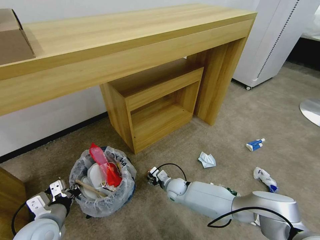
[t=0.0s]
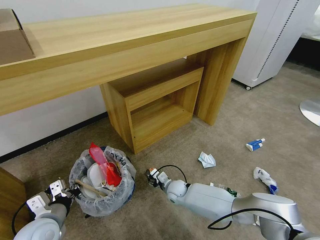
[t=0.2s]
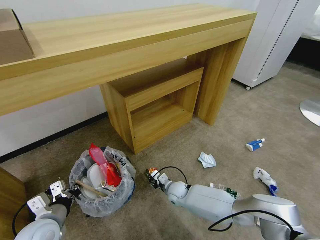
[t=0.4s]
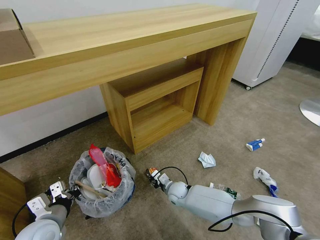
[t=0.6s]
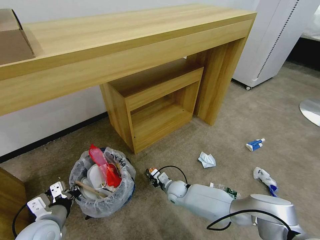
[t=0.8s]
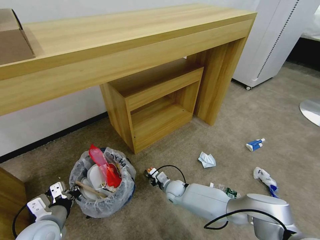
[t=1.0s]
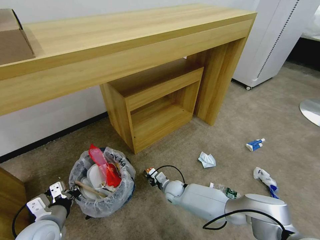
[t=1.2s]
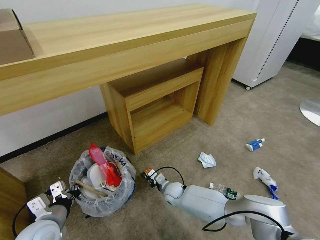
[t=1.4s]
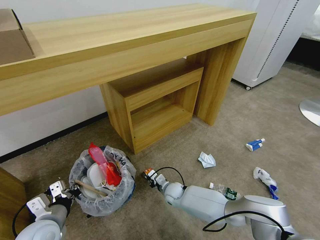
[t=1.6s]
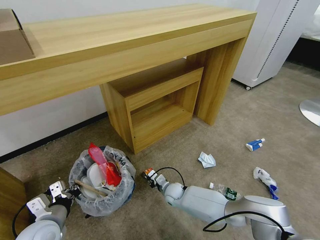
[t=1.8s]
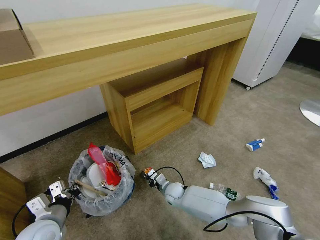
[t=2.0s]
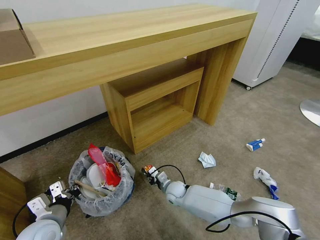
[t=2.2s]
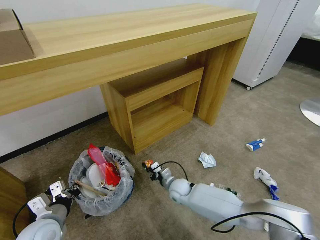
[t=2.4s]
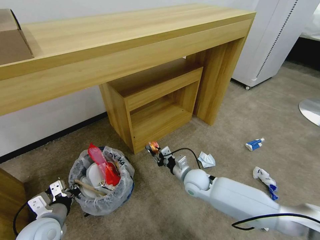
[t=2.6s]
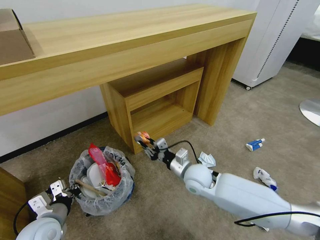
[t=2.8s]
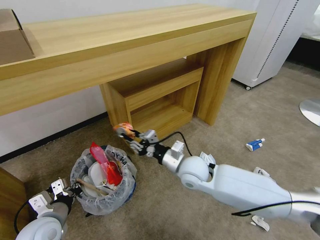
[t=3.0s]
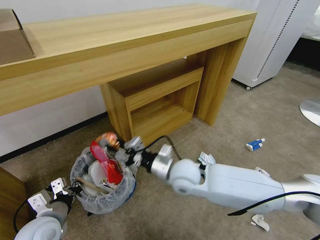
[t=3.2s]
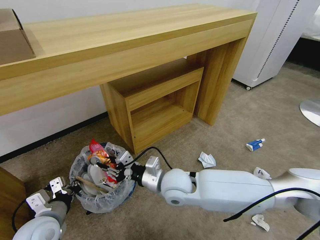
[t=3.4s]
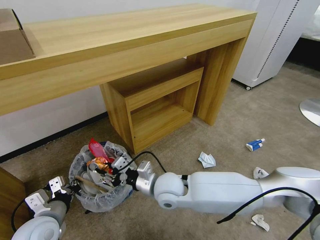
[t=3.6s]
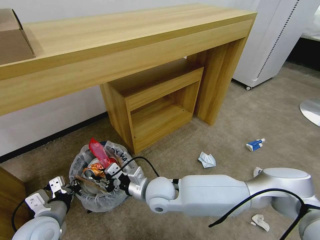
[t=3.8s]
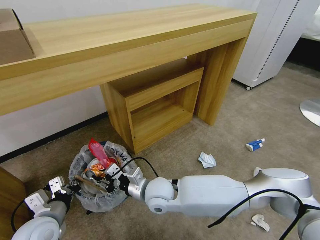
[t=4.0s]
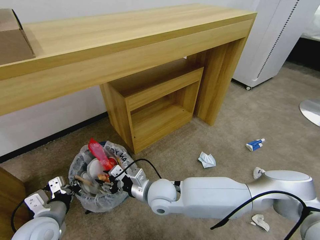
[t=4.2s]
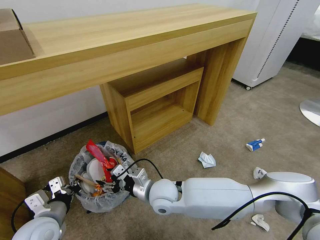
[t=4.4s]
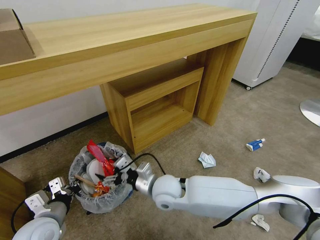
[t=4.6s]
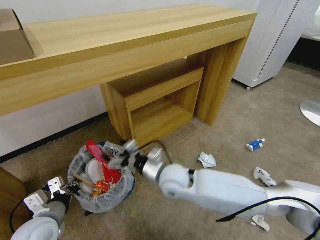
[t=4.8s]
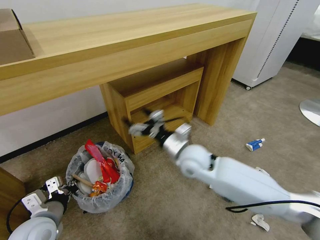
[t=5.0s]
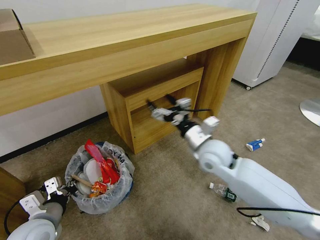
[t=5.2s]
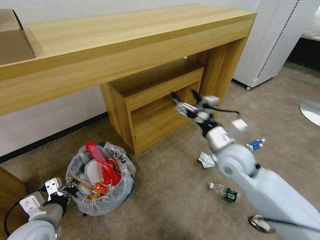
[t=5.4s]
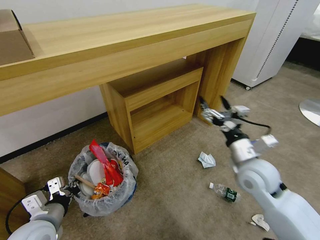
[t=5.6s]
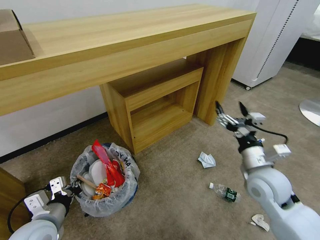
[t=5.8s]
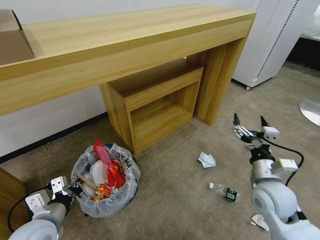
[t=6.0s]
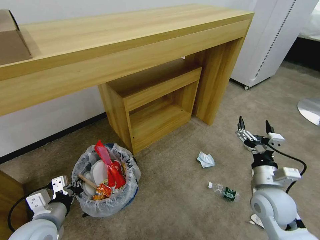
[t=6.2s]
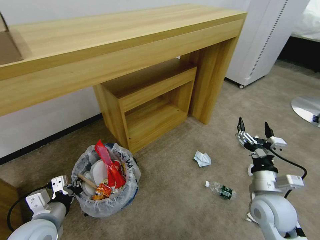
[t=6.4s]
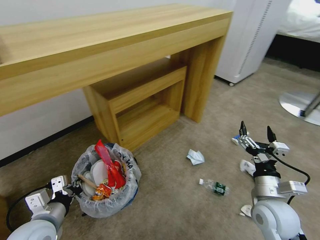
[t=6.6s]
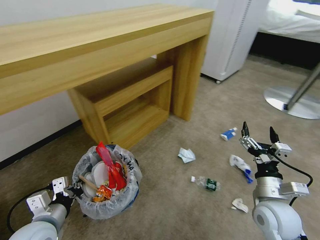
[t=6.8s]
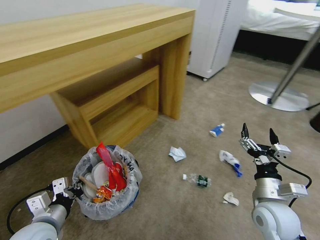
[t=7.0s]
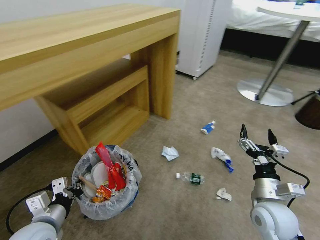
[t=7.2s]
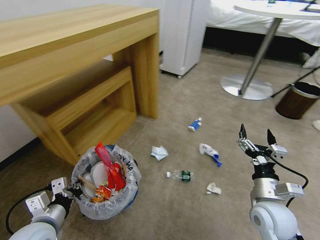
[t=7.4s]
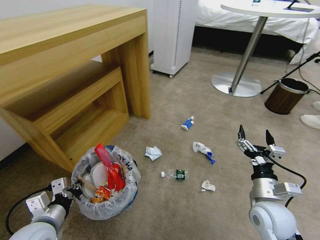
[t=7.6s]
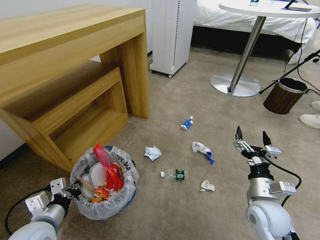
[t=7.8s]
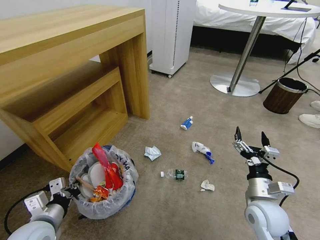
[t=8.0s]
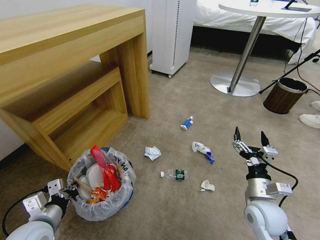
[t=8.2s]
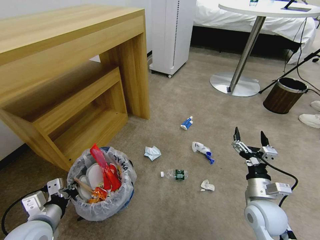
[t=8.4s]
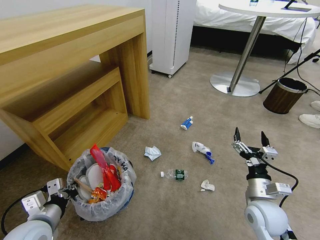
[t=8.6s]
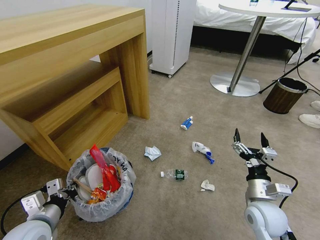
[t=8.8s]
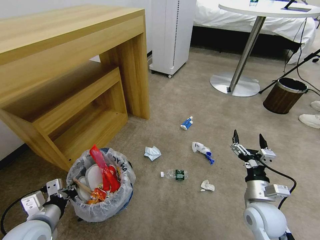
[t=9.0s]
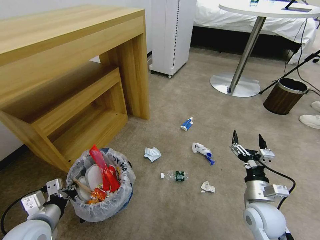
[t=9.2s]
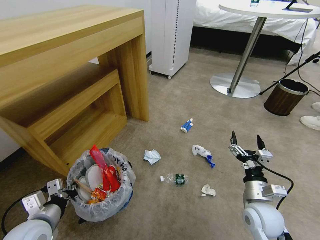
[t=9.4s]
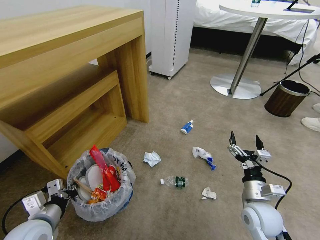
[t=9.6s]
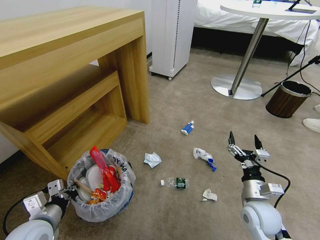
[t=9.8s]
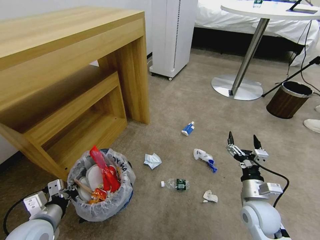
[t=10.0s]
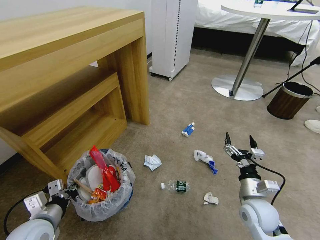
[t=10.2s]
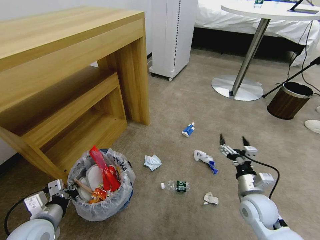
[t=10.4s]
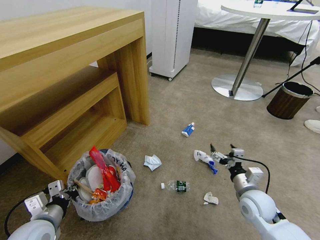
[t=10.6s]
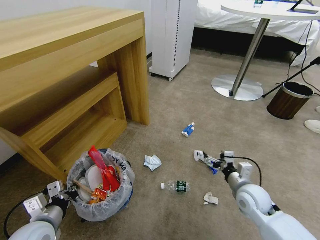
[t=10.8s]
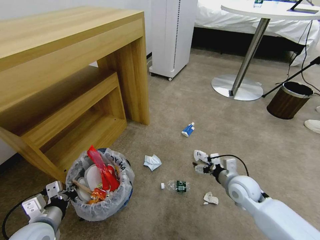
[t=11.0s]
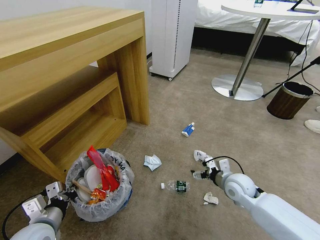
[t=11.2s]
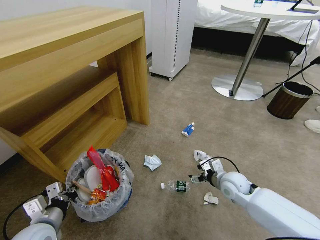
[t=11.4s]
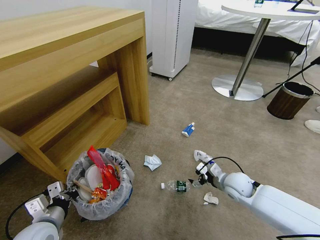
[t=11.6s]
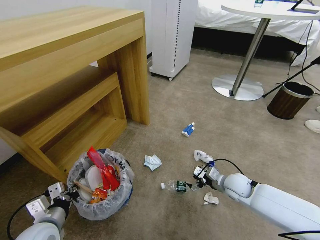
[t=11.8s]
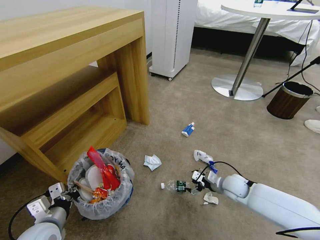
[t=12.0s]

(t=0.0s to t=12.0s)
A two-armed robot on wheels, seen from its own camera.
Task of the whole recording: Pick up the trash bin and place the garbage on the floor into it.
t=0.0s - t=1.6s: The right gripper closes up.
t=1.6s - t=3.0s: The right gripper shifts some 25 cm upward.
t=3.0s - t=4.4s: The right gripper travels to the left and backward by approximately 10 cm, and opens up.
t=4.4s - t=6.0s: The right gripper goes about 30 cm to the right.
t=6.0s - t=7.6s: The right gripper changes place by approximately 5 cm.
t=7.6s - t=9.0s: The grippers move only a little.
t=10.4s - t=12.0s: The right gripper travels forward and downward by some 15 cm.

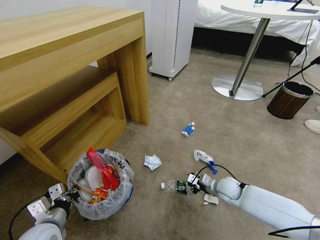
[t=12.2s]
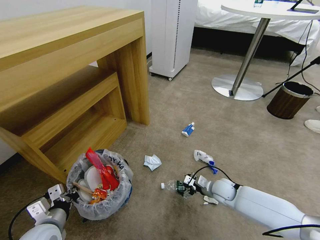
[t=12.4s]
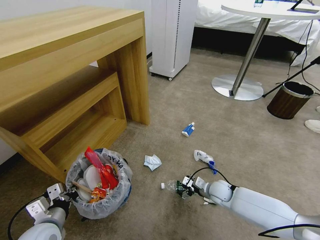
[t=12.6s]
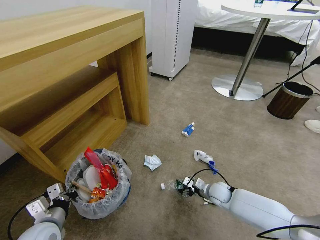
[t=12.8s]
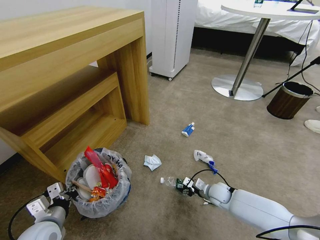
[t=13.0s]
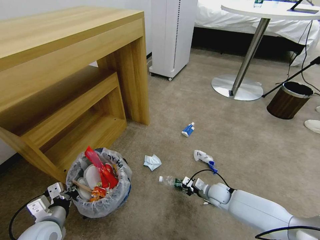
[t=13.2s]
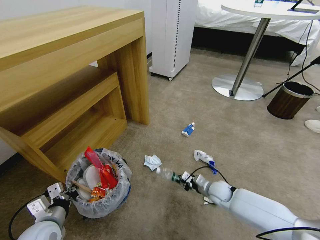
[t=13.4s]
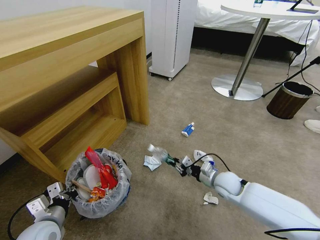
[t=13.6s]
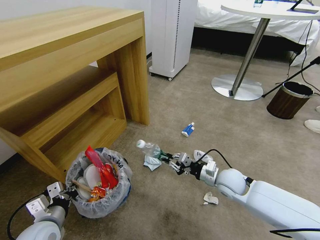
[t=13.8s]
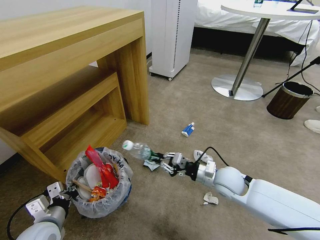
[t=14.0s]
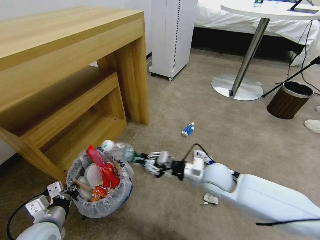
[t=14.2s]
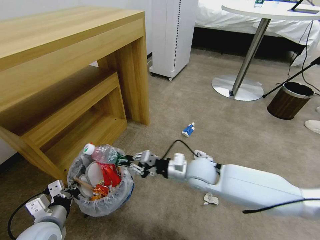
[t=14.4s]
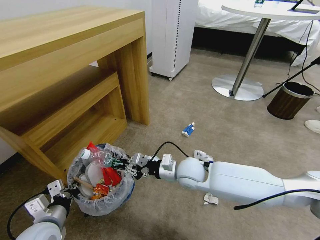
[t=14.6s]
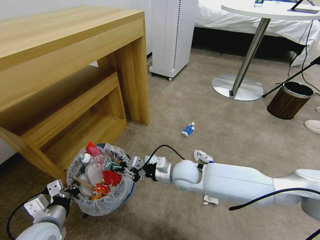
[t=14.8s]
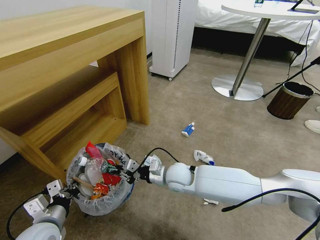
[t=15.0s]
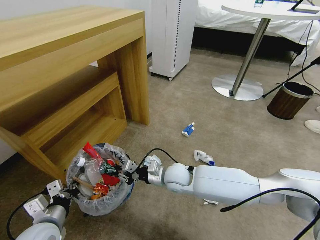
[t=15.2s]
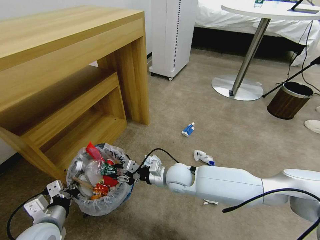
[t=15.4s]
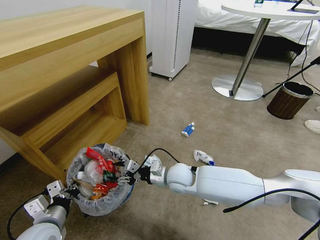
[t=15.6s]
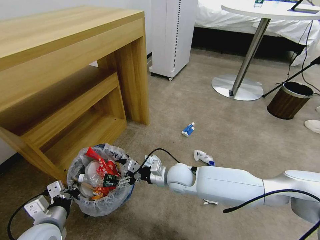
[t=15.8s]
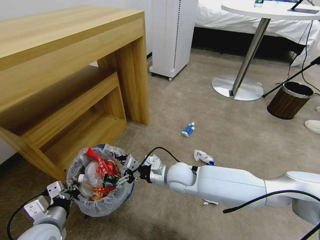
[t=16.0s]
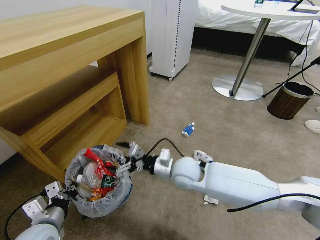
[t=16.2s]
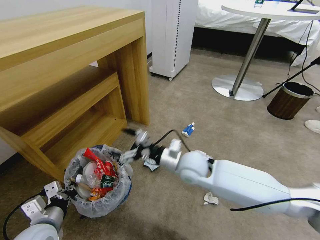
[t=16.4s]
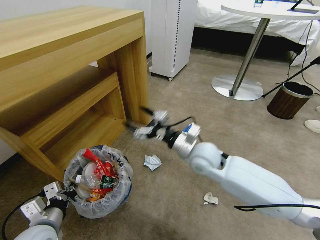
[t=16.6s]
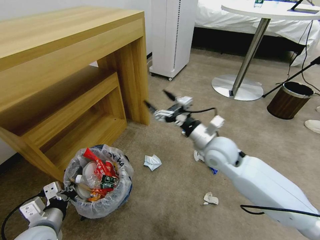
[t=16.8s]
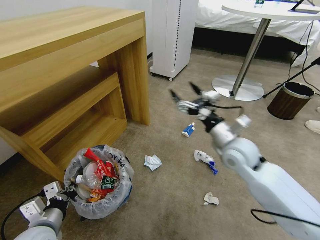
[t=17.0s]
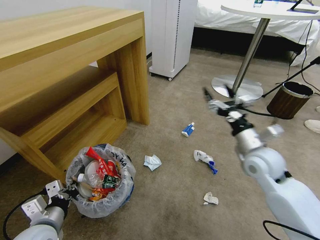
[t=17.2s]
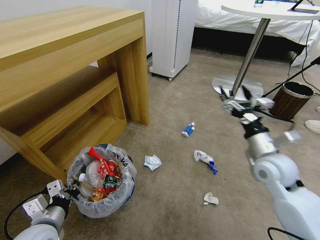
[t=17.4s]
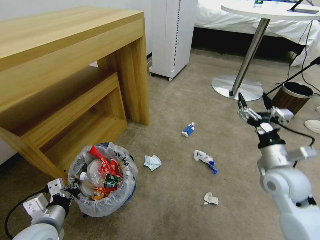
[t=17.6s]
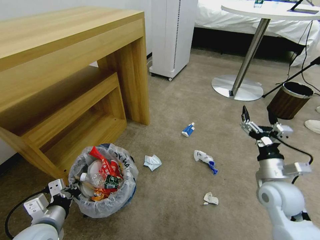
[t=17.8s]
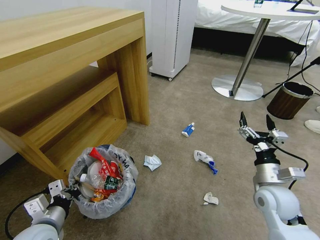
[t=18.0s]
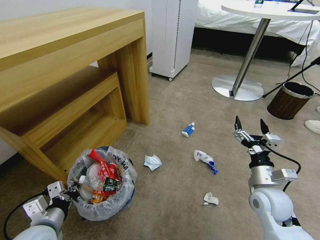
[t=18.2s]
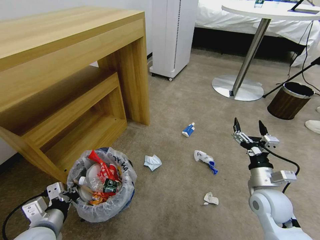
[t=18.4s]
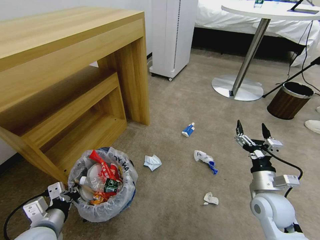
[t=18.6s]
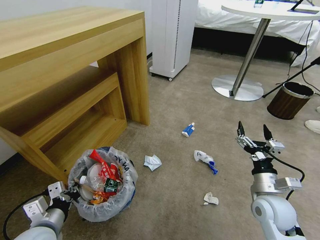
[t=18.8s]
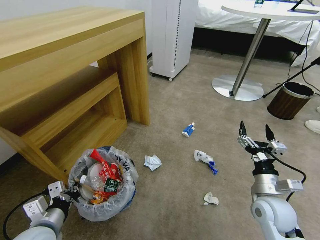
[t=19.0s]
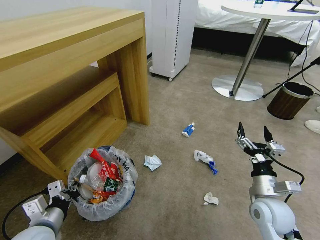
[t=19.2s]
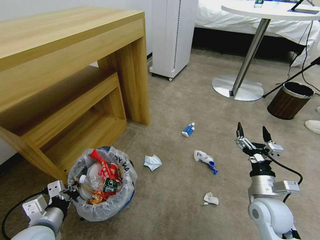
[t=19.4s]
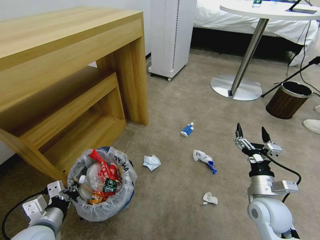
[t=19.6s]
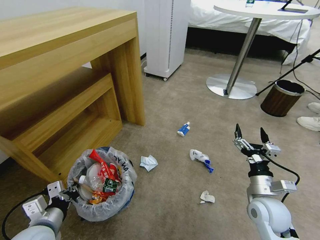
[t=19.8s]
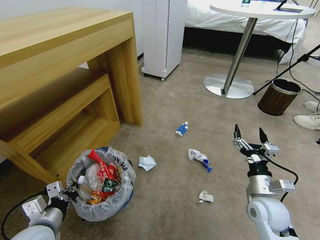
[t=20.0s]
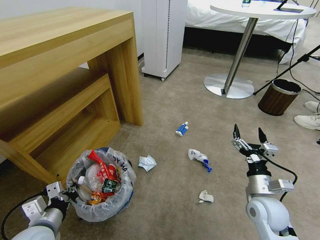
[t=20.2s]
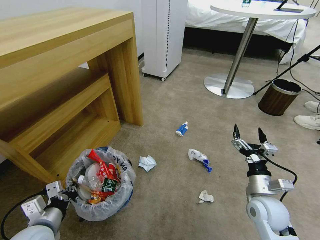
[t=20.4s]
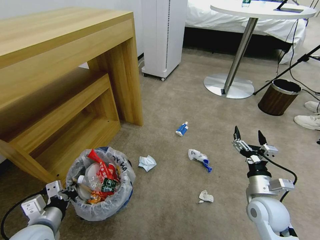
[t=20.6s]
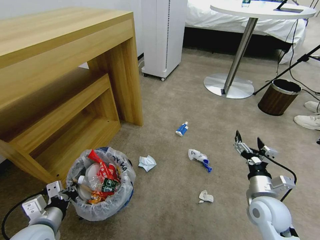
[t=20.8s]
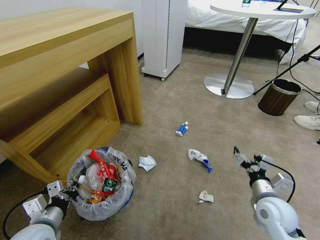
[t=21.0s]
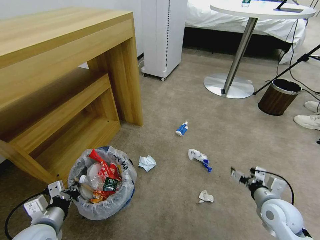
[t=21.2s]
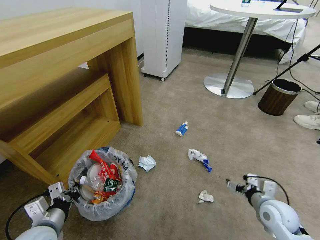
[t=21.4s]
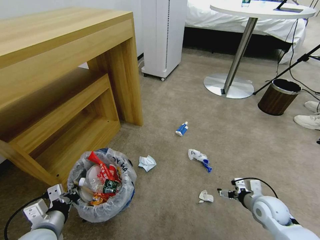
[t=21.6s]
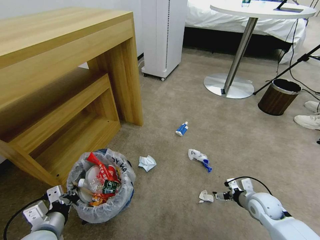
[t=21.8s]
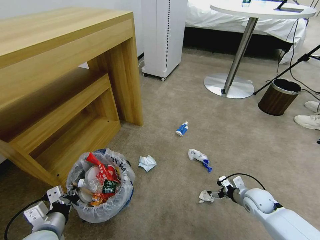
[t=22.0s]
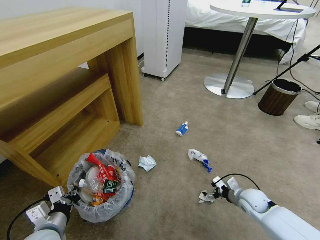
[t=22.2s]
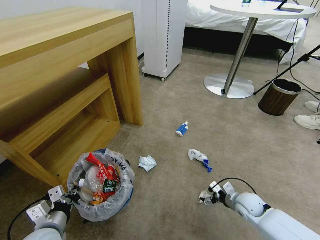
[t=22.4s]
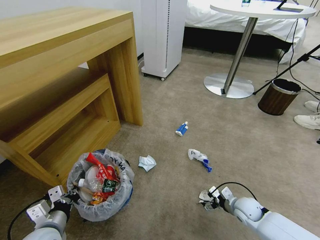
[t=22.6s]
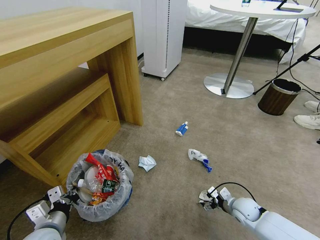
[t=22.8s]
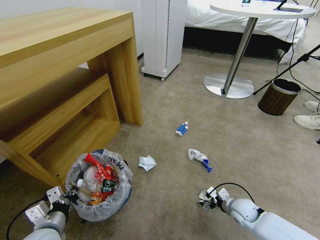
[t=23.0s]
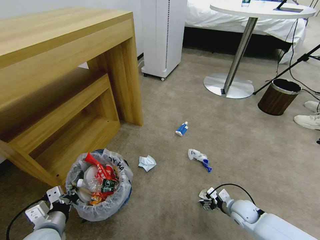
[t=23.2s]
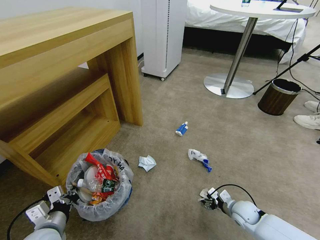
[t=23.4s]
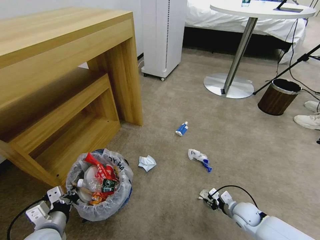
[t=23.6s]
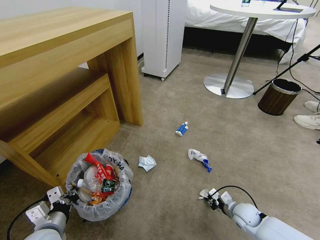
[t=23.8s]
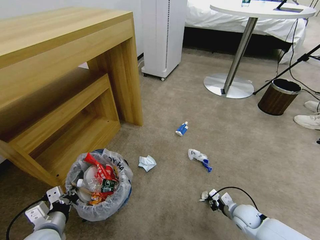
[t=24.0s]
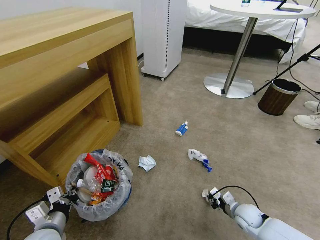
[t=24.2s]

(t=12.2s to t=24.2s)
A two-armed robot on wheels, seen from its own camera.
Task of the whole recording: Pick up the trash bin and place the garbage on the floor into it.
t=12.2s - t=13.8s: The right gripper travels upward by some 10 cm, and closes.
t=13.8s - t=15.2s: The right gripper travels to the left by about 20 cm.
t=15.2s - t=16.6s: The right gripper is displaced upward and to the right by roughly 15 cm, and opens up.
t=16.6s - t=18.2s: The right gripper goes approximately 20 cm to the right, backward and downward.
t=18.2s - t=19.8s: The grippers make only small movements.
t=19.8s - t=21.2s: The right gripper changes place by roughly 5 cm.
t=21.2s - t=22.6s: The right gripper goes about 15 cm downward.
t=22.6s - t=24.2s: The right gripper closes its fingers.
